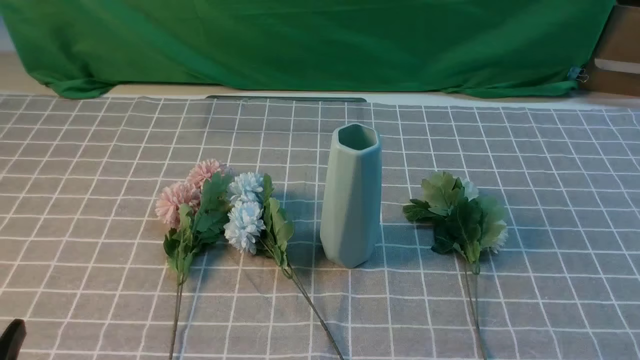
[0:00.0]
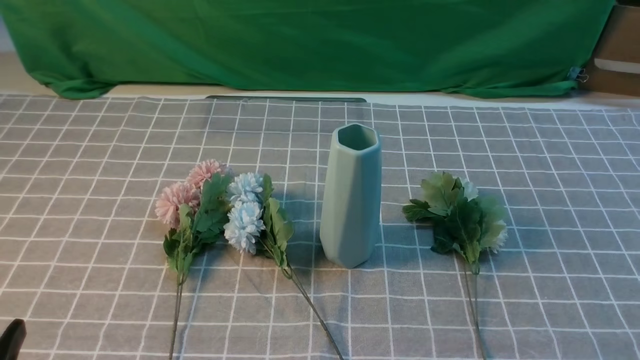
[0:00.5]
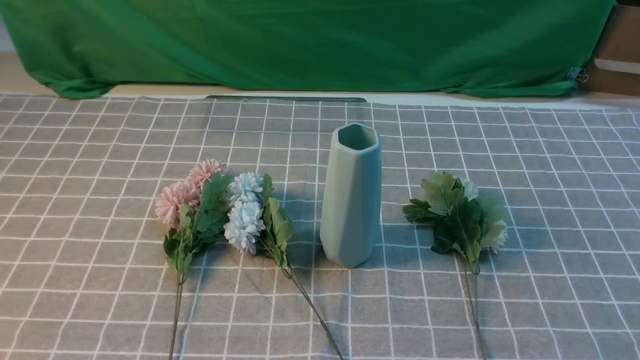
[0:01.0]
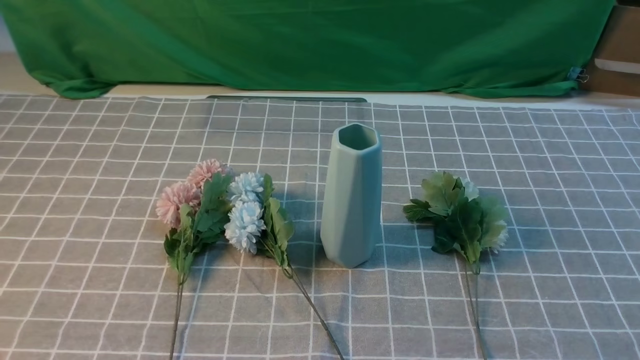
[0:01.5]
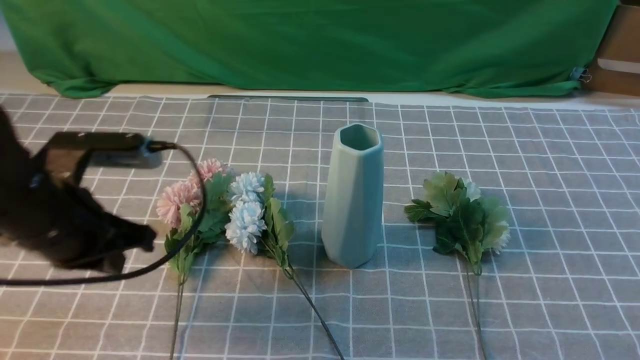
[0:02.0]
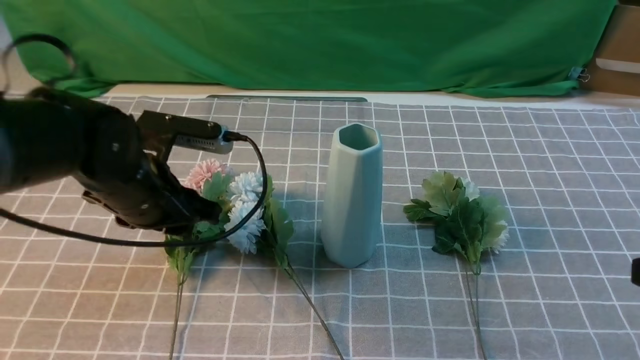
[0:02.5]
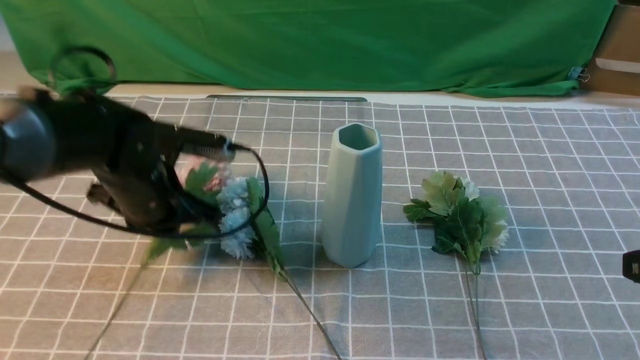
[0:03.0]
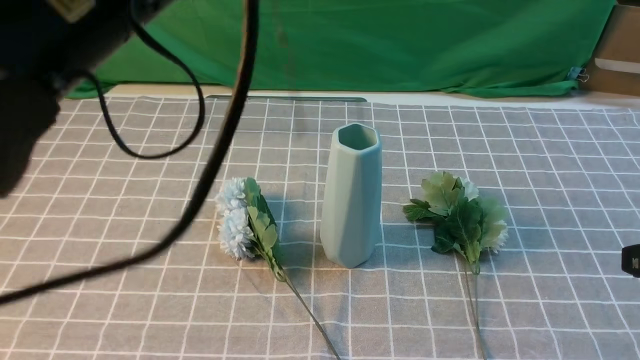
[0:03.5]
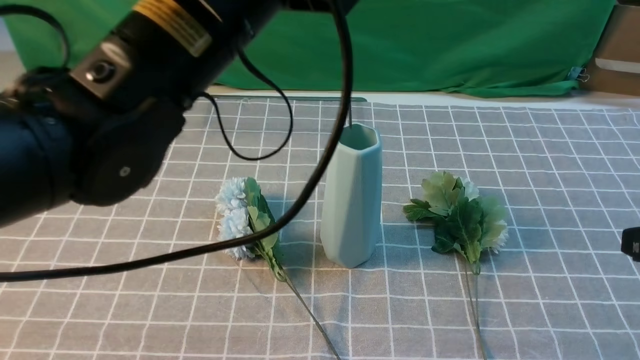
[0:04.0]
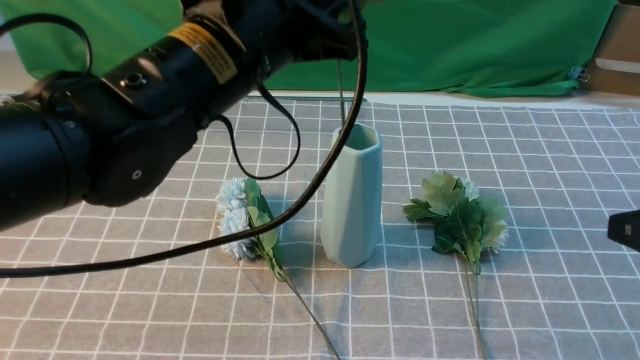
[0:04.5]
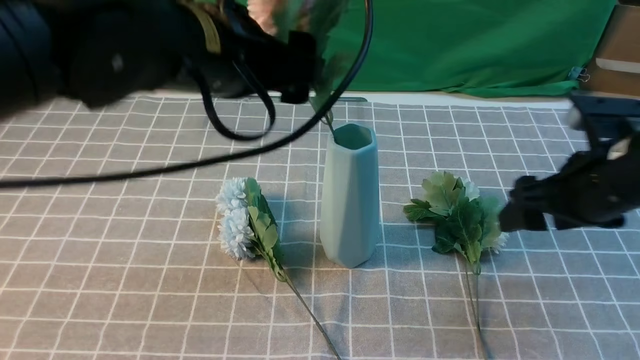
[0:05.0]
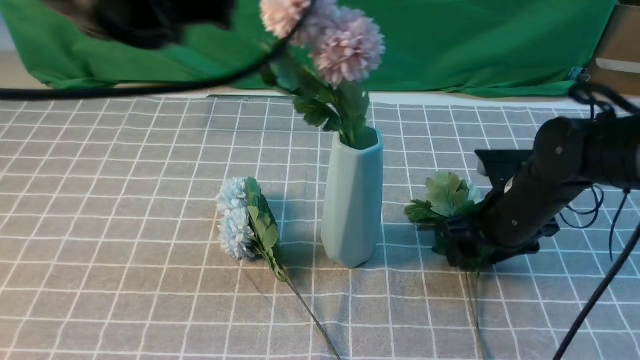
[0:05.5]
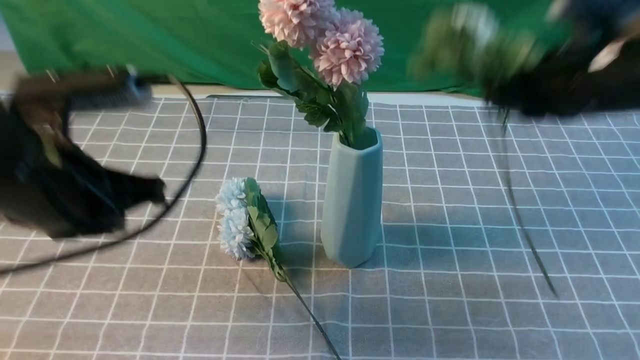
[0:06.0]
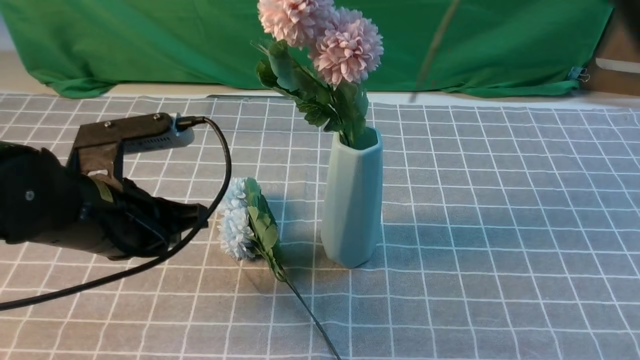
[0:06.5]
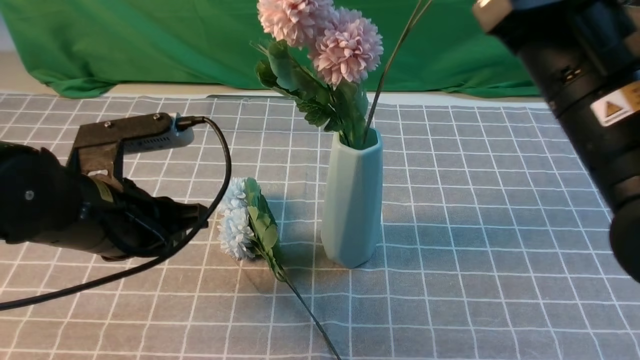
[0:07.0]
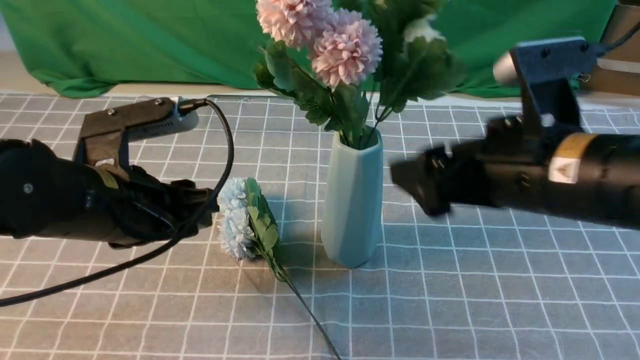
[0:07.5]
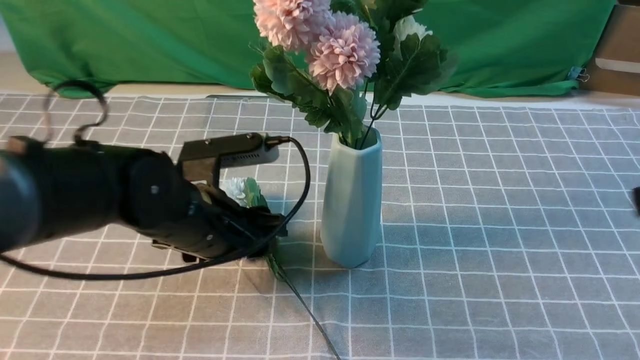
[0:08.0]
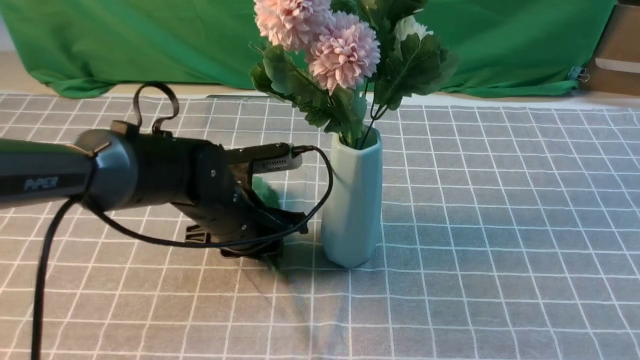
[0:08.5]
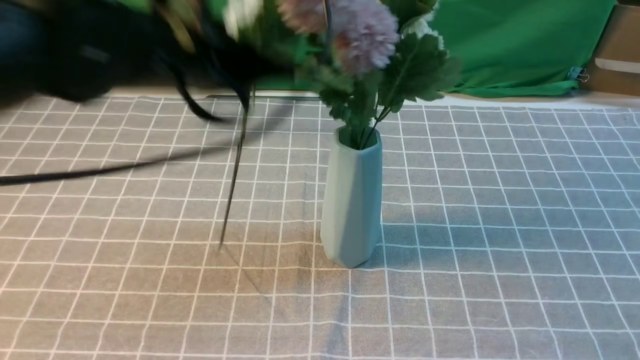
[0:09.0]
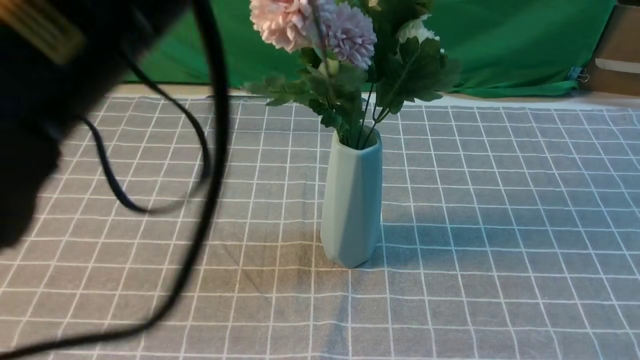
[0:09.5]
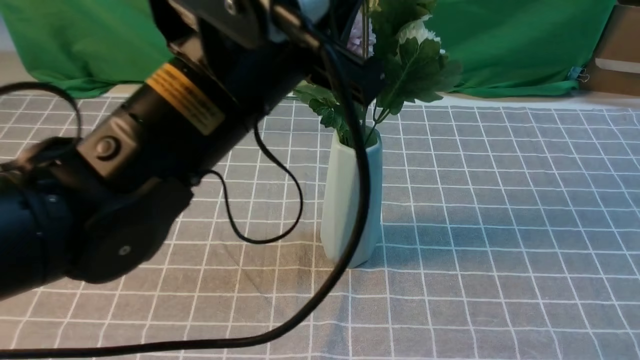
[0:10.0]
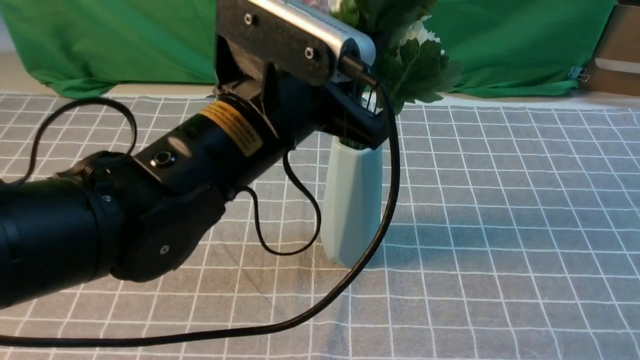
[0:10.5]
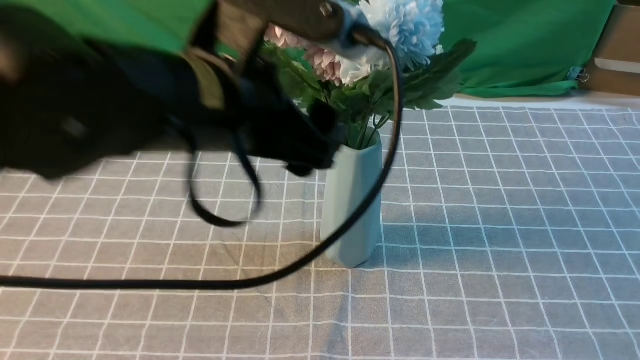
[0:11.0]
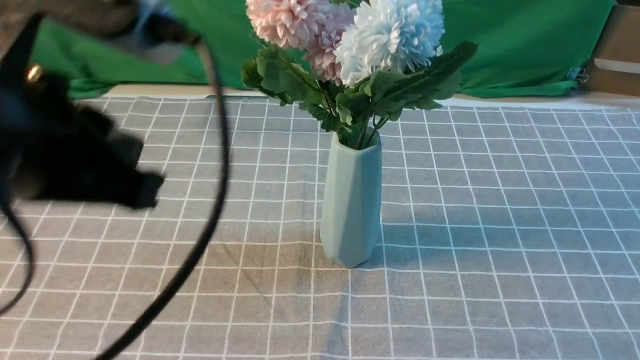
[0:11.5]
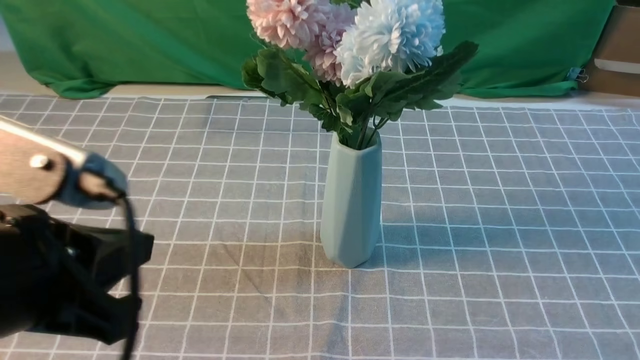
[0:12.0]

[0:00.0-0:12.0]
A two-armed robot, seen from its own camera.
Task of the whole recording: insert the flowers into the vase on the table with the grey tablecloth.
Step, 0:00.0 to 0:02.5: use the left arm to grab a bunch of fresh flowers.
Step, 0:03.0 to 0:05.0: use the left arm to insert the flowers into the vase.
Step, 0:06.0 to 0:07.0: use the right arm to insert the flowers into the vase.
Step, 0:07.5 to 0:08.5: use the right arm to grab a bunch of fresh flowers.
0:00.0 to 0:02.0: The left gripper goes about 20 cm forward, and closes up. The right gripper heads upward, covering about 5 cm.
0:02.0 to 0:04.0: The right gripper heads forward and upward, covering approximately 10 cm; the left gripper heads upward and to the right, covering some 20 cm, and opens, then closes once more.
0:04.0 to 0:06.0: The left gripper goes approximately 15 cm to the left and downward, and opens, then closes again. Meanwhile the right gripper shifts some 15 cm forward and to the left, goes downward and returns, about 15 cm each way, and opens, then closes once more.
0:06.0 to 0:08.0: The left gripper goes roughly 10 cm downward and to the right, and opens; the right gripper heads backward, covering approximately 20 cm, and opens up.
0:08.0 to 0:10.0: The left gripper moves upward, roughly 15 cm, and closes.
0:10.0 to 0:12.0: The right gripper goes about 15 cm backward, downward and to the right, and closes its fingers. The left gripper moves backward and to the left, approximately 15 cm, and opens, then closes again.

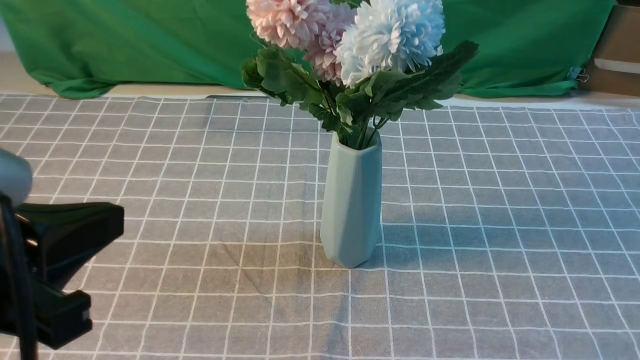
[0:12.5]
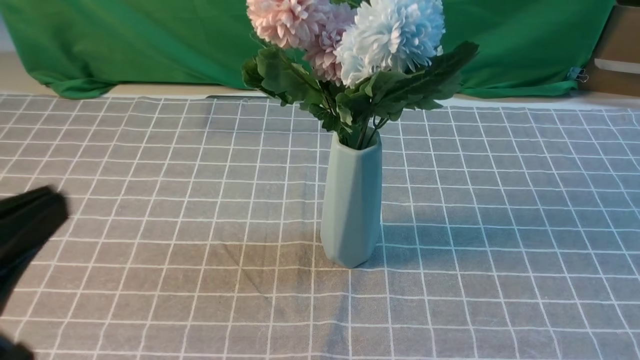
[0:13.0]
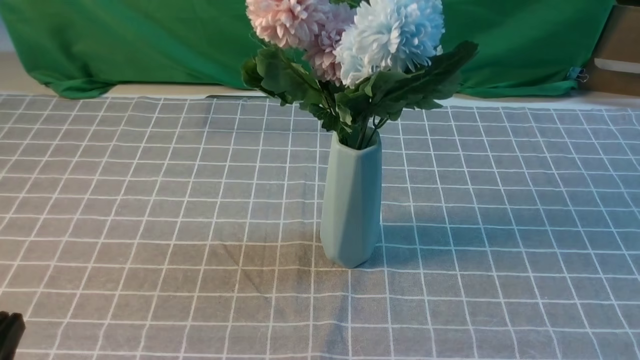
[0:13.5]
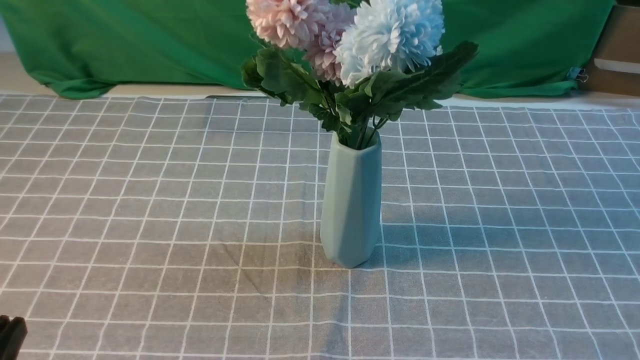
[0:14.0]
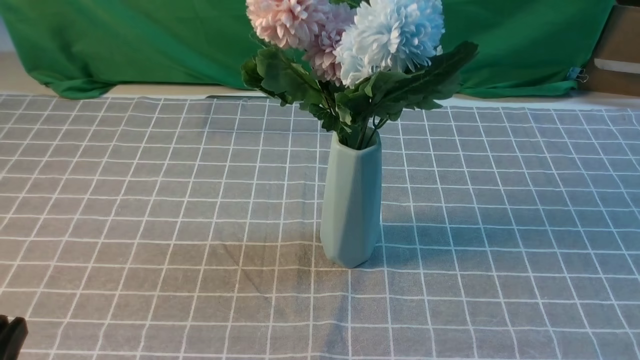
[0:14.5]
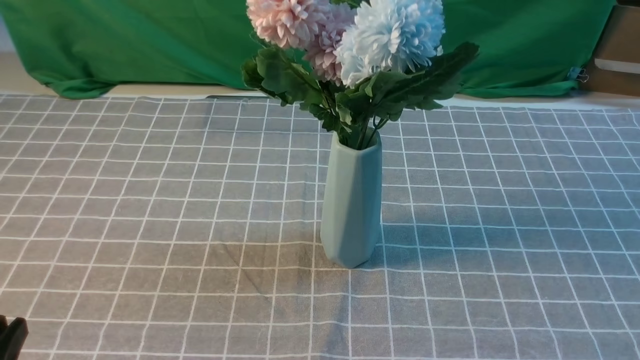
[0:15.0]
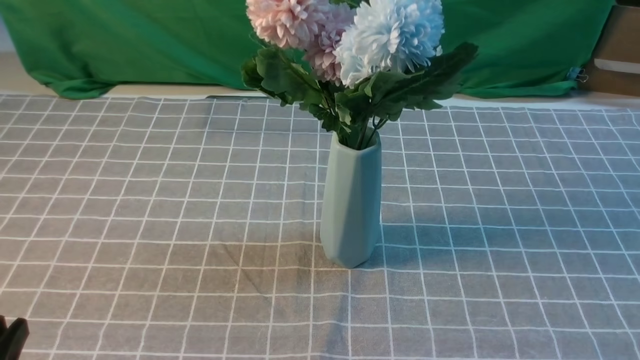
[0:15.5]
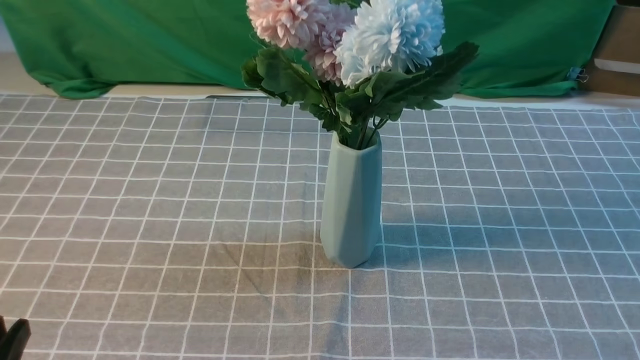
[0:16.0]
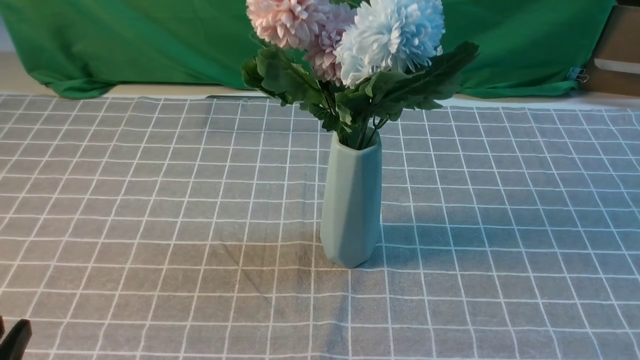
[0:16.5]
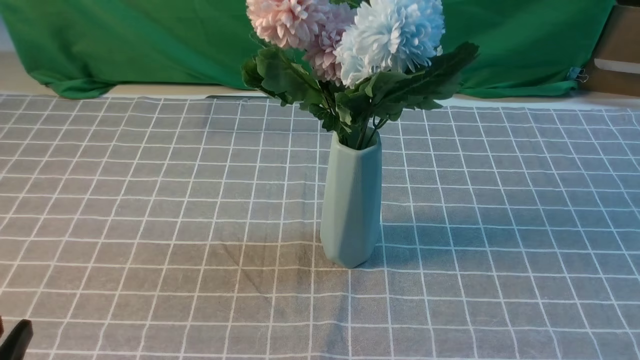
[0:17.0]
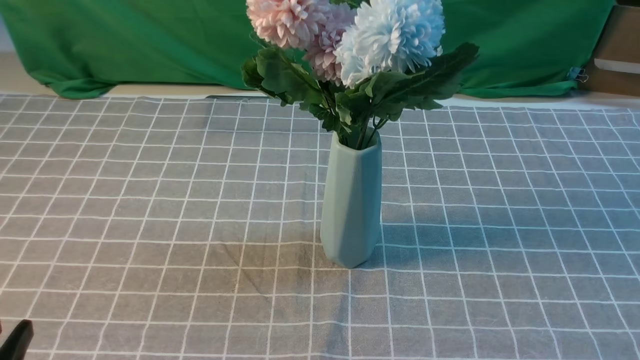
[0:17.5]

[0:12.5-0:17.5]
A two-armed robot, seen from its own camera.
Task of the whole recording: insert the flowers into the vase on the table with the grey tablecloth.
0:12.5 to 0:15.0: The left gripper goes some 15 cm downward and to the left.
